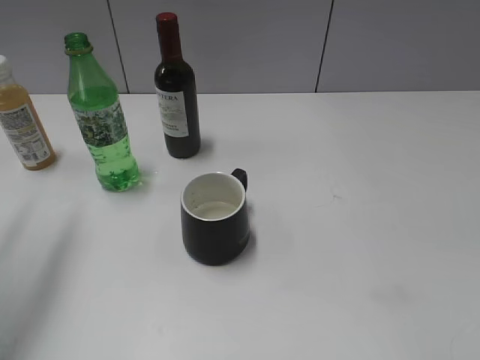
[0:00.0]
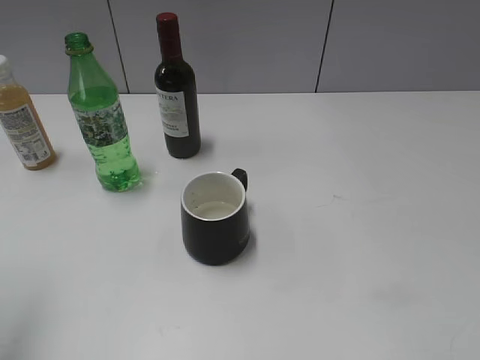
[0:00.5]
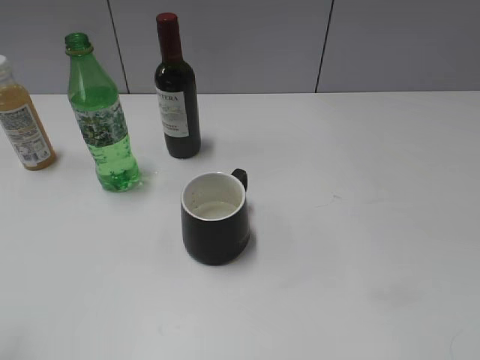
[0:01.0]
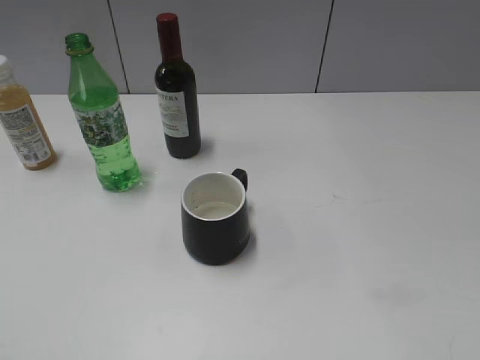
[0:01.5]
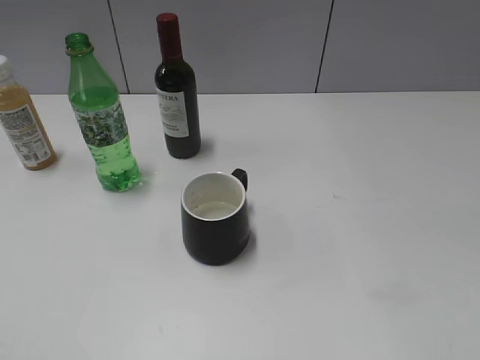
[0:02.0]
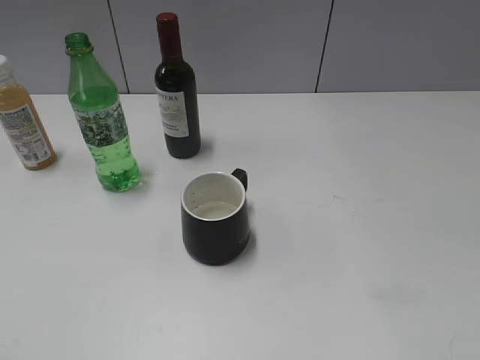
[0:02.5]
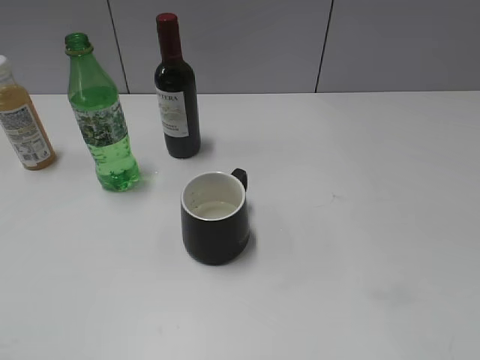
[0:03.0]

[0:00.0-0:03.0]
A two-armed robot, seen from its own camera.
0:00.0 to 0:01.5: The left gripper heads backward, covering some 20 cm.
